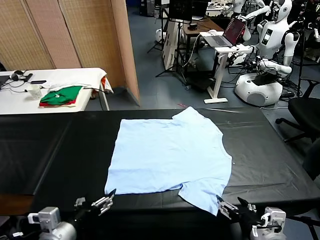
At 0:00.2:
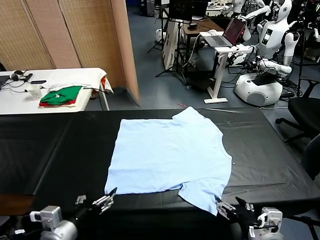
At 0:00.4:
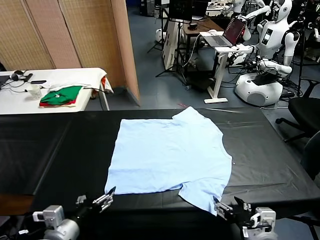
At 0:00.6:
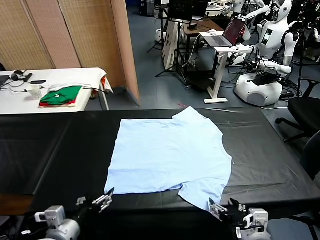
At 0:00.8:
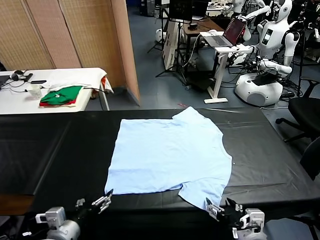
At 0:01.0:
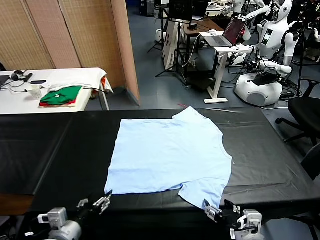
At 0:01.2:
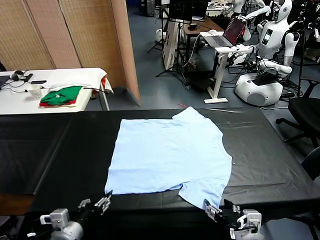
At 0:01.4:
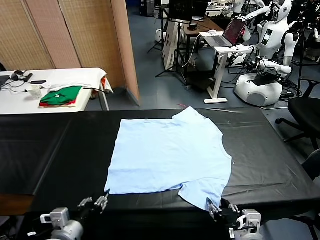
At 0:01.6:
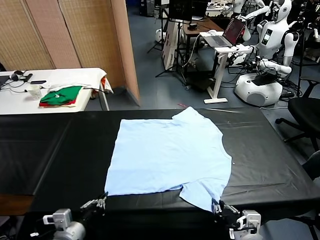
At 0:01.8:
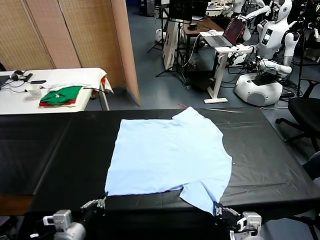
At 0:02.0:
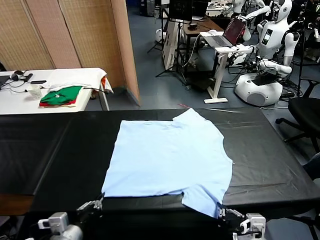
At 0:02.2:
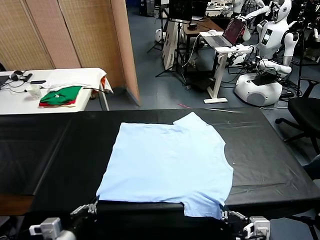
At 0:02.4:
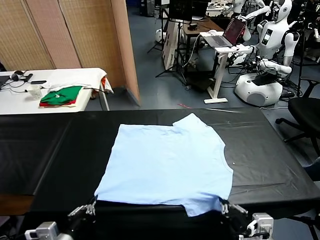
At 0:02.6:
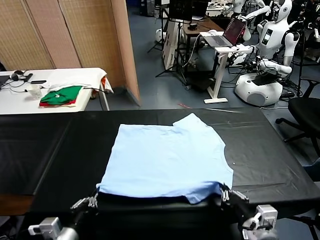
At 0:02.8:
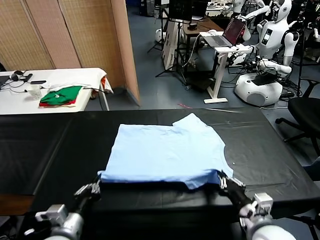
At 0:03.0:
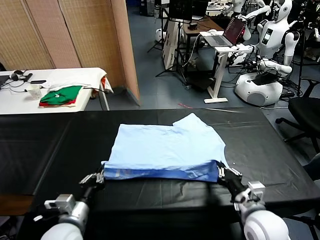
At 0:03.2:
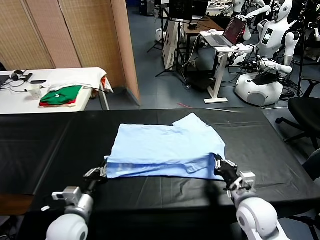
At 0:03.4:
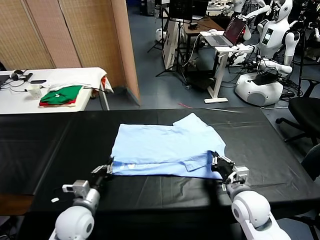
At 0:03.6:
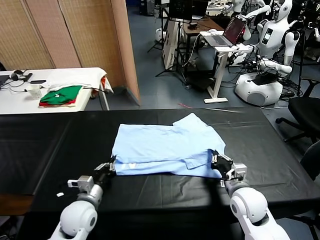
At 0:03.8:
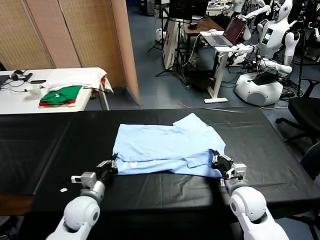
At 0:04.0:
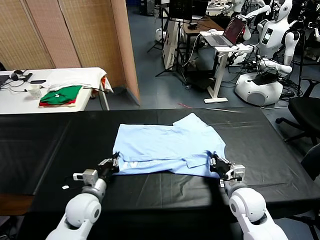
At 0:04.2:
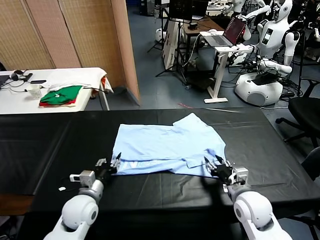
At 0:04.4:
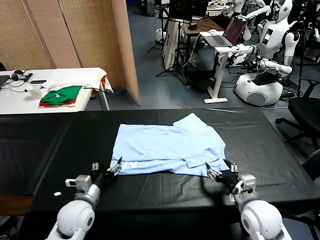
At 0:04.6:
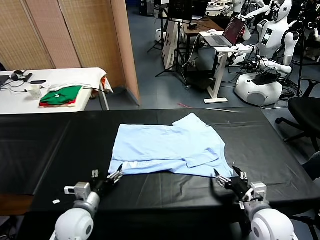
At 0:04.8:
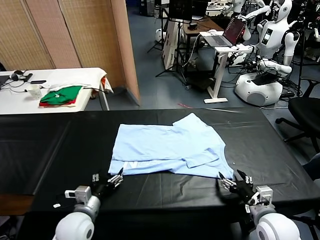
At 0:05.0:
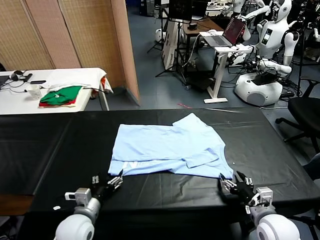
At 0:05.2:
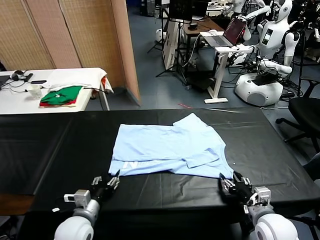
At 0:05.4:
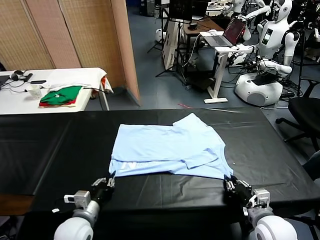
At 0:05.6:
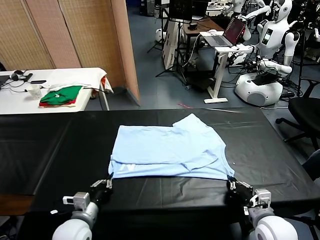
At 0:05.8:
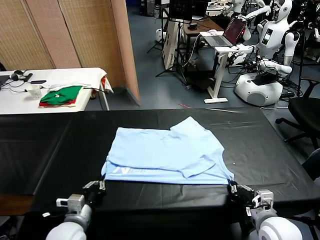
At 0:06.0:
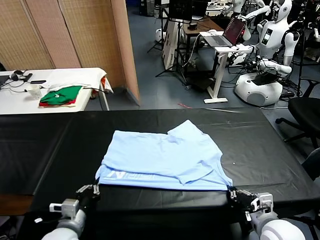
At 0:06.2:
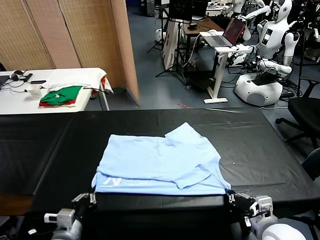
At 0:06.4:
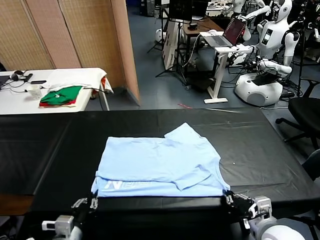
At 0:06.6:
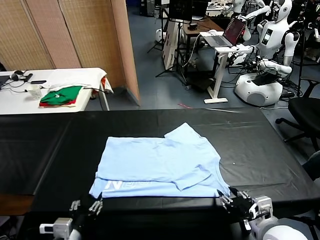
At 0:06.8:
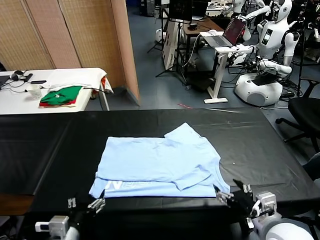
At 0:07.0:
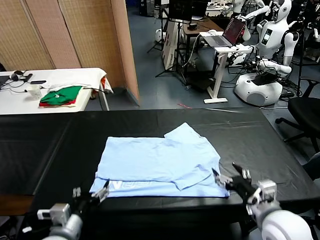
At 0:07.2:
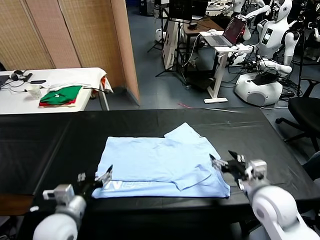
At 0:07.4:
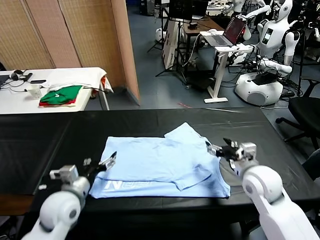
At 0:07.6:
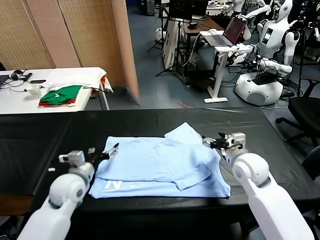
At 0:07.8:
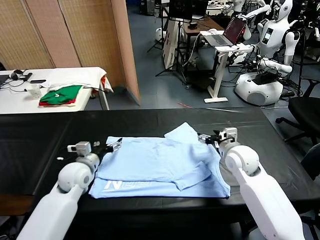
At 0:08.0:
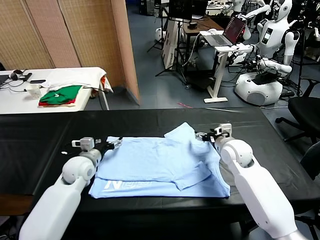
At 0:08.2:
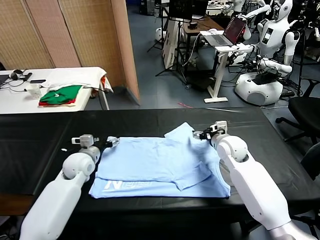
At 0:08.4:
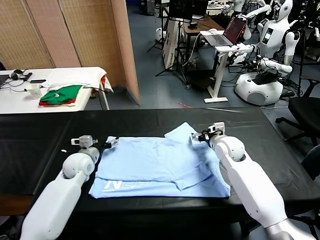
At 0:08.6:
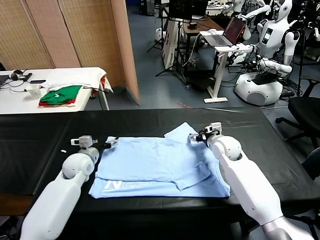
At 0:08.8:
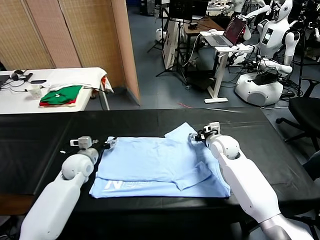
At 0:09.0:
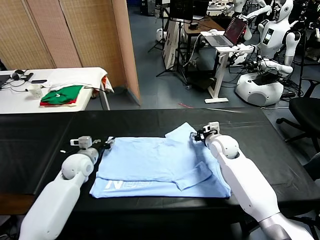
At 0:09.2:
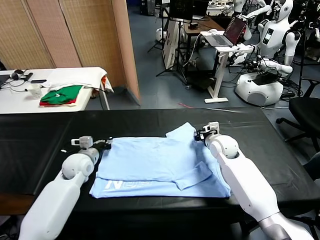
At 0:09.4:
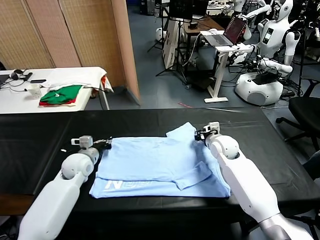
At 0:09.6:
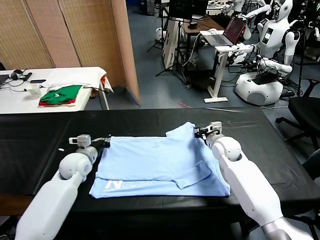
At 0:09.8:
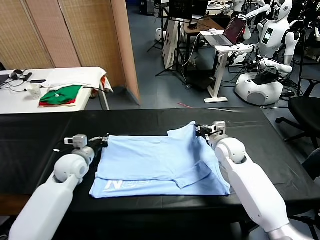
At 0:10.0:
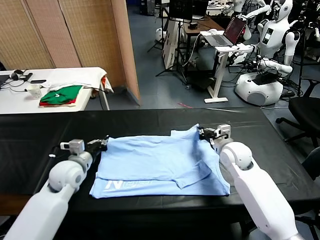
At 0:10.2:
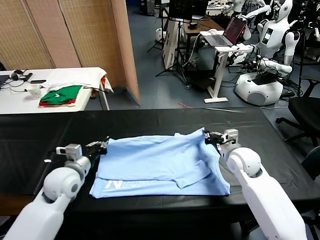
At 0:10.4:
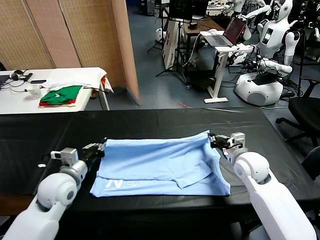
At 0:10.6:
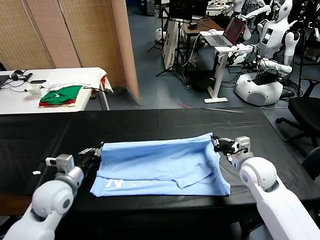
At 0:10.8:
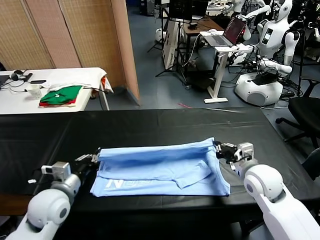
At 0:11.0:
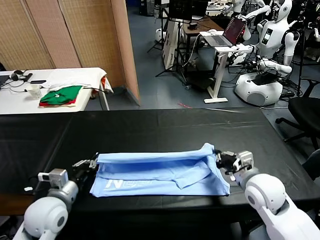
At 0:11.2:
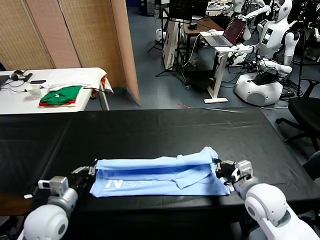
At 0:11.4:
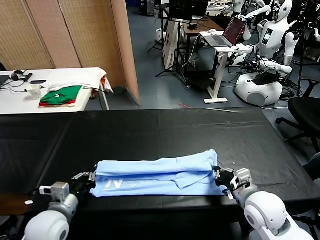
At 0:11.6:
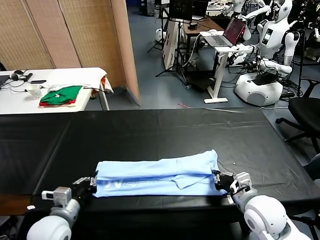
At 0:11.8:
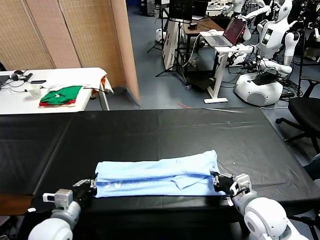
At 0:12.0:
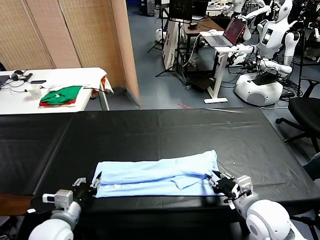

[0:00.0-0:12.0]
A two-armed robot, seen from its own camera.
Task of the whole recording: fold and organize the clothes.
Step, 0:00.0 to 0:01.8: use both grippers simultaneously to clamp the lower edge of the clothing fabric.
Step, 0:02.0 to 0:04.0: use both grippers to drag the lower edge of the fabric forward and fold it over the upper edge.
Step, 0:04.4 to 0:06.6: Drag the clothes downward with both gripper.
Step, 0:06.8 to 0:09.2: use both grippers simultaneously to clamp the upper edge of the clothing fabric.
0:01.6 to 0:03.0: The right gripper shifts approximately 15 cm forward. Meanwhile the left gripper travels forward by about 5 cm.
0:03.0 to 0:04.4: The left gripper opens up, while the right gripper goes roughly 10 cm to the right and backward, and opens.
0:04.4 to 0:06.0: The left gripper heads backward, covering some 10 cm, and closes its fingers. Meanwhile the right gripper ends up some 5 cm from where it was, and closes.
0:06.0 to 0:07.6: The grippers both shift forward by roughly 20 cm. The right gripper opens, while the left gripper opens up.
0:07.6 to 0:09.0: The grippers both shift forward by approximately 5 cm. The right gripper closes. Meanwhile the left gripper closes.
0:09.0 to 0:10.4: The right gripper travels backward and to the right by about 15 cm. Meanwhile the left gripper travels backward and upward by about 15 cm, and closes.
0:10.4 to 0:12.0: Both grippers move backward, approximately 10 cm. The left gripper opens up. The right gripper opens its fingers.

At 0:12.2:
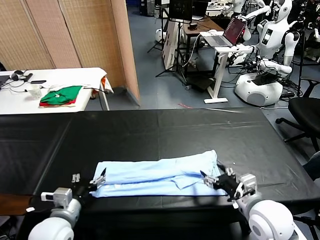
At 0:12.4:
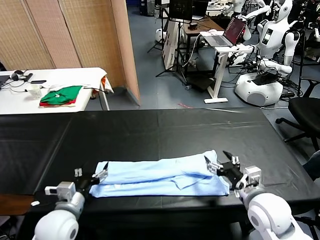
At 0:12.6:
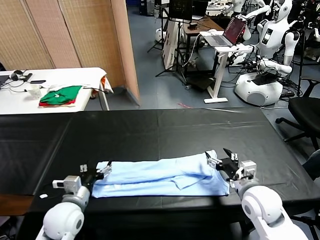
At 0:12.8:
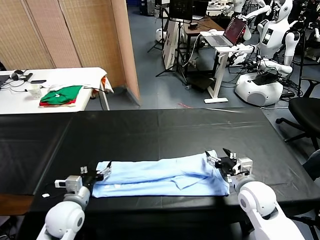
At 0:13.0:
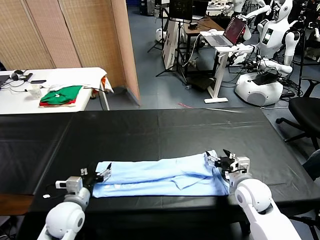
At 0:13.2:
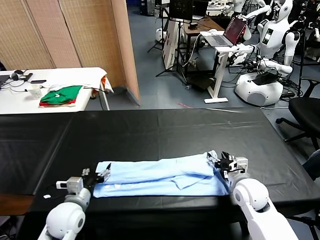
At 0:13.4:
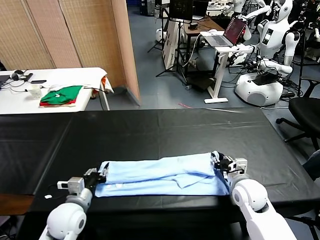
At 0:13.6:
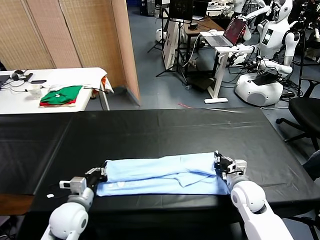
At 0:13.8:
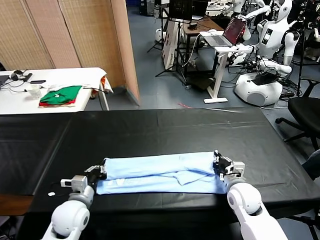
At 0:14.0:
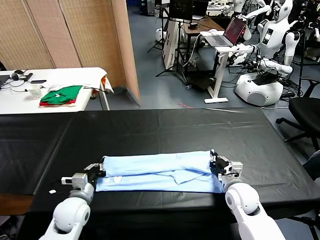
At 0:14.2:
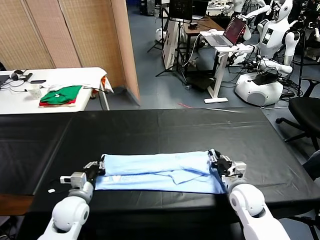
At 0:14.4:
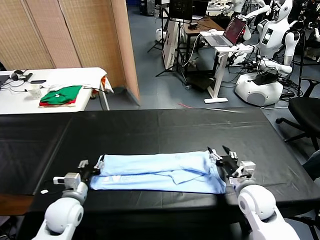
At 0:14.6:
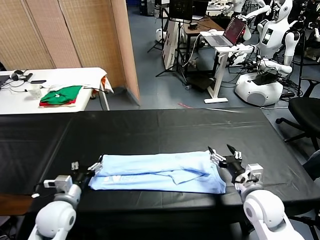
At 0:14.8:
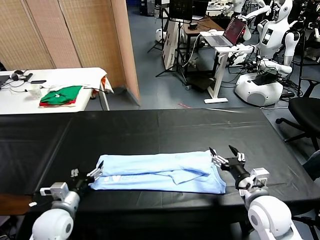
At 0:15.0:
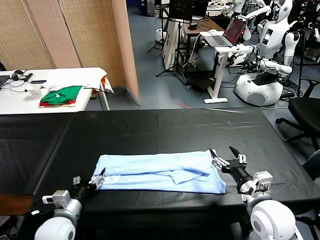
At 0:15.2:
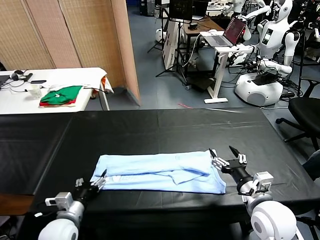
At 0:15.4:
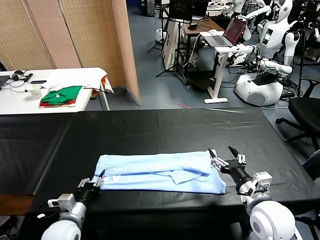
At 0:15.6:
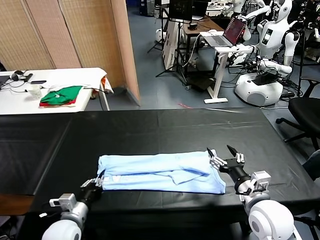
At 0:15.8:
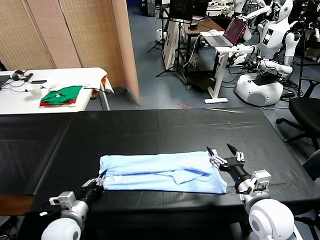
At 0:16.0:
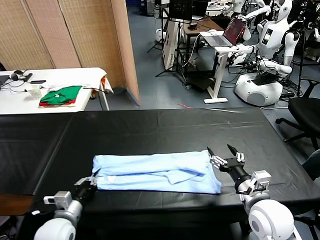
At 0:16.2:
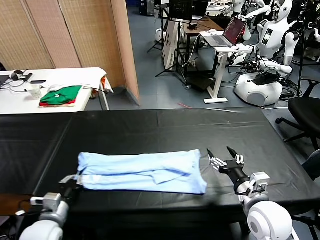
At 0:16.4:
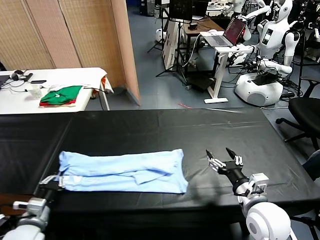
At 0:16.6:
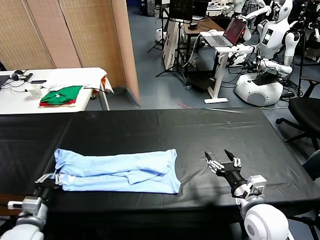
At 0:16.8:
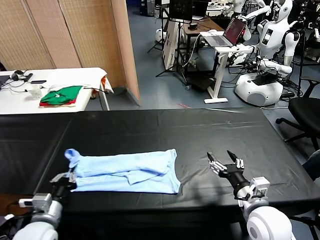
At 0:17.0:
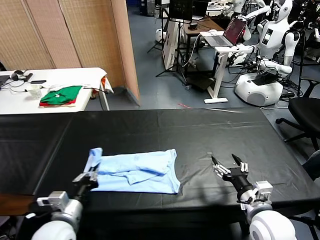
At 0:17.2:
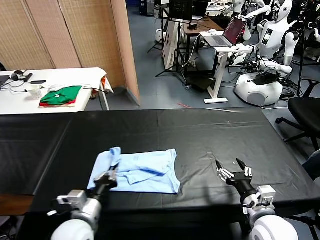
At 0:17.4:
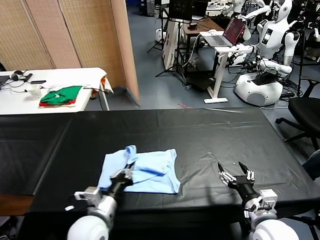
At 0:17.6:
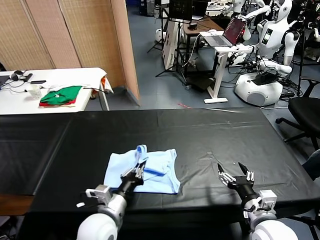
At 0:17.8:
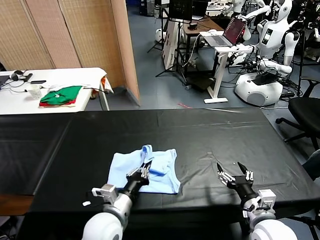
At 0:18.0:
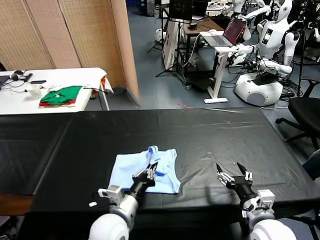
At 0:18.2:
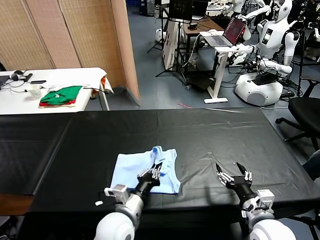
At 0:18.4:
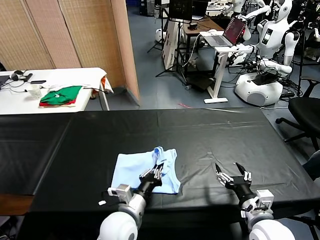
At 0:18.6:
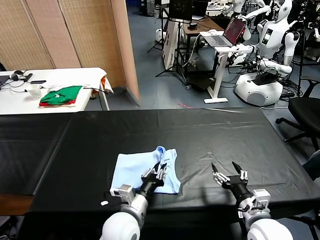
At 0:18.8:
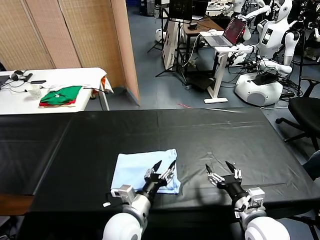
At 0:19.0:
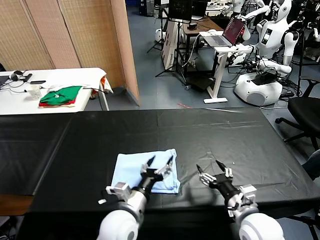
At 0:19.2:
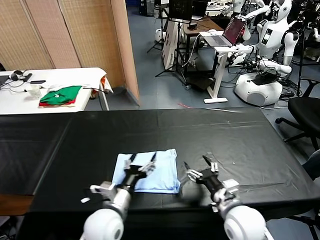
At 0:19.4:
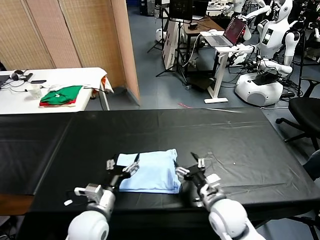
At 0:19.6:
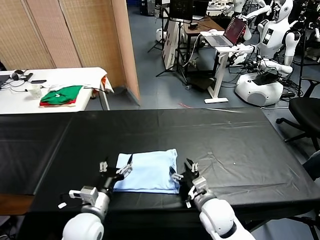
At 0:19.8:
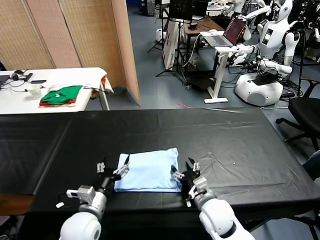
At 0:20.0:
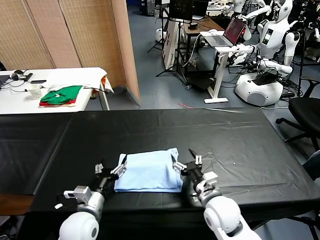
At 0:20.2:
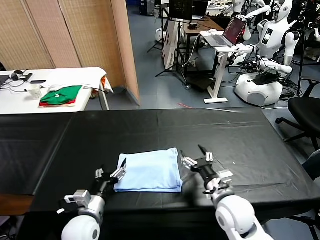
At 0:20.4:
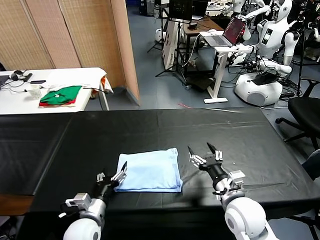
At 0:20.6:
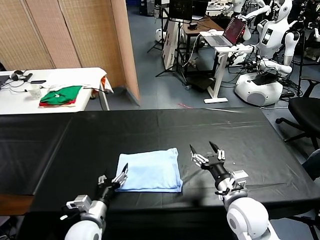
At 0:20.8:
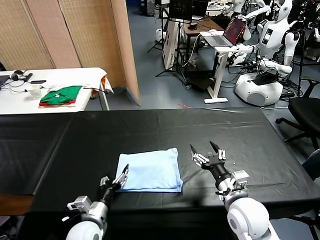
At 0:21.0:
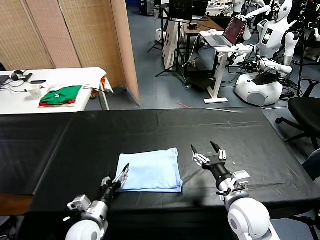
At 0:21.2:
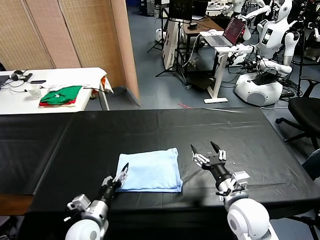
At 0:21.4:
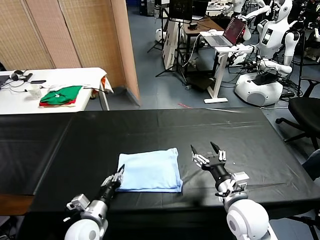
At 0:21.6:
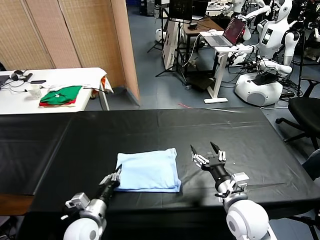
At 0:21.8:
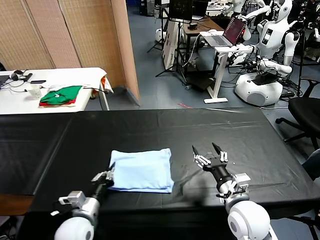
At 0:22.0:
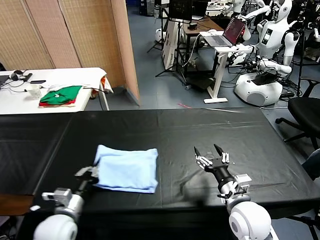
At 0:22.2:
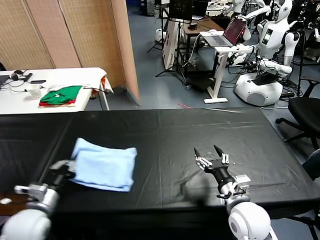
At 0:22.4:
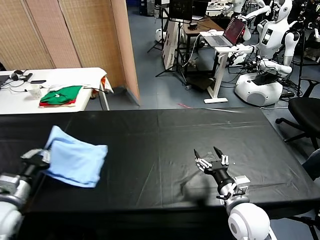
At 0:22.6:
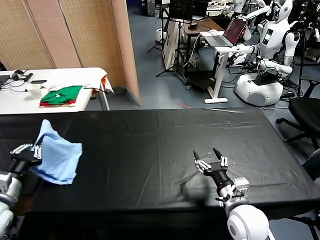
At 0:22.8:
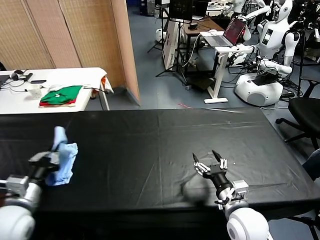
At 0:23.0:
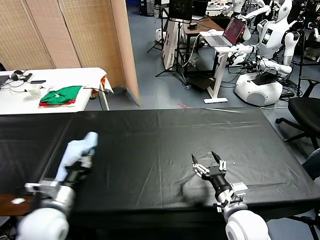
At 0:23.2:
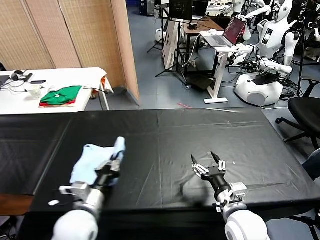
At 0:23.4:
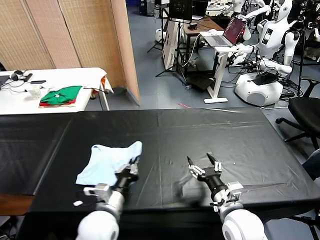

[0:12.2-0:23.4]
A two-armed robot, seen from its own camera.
Task of the whole recording: fold and organize the clothes.
Step, 0:12.2 to 0:15.6: use the left gripper to clamp the left edge of the fabric.
Step, 0:15.8 to 0:18.6: use the left gripper to drag the left edge of the fabric to the left and folds it over the right edge.
0:12.2 to 0:13.8: The right gripper heads downward and forward, covering about 10 cm, and closes up. Meanwhile the left gripper heads forward and downward, covering roughly 10 cm, and closes up.
0:13.8 to 0:15.4: The right gripper shifts roughly 15 cm upward and backward, and opens its fingers, while the left gripper goes roughly 5 cm backward, and opens up.
0:15.4 to 0:17.0: The left gripper is displaced upward by about 5 cm, moves roughly 10 cm to the left and comes back, and closes up.
0:17.0 to 0:18.6: The left gripper heads to the right, covering some 15 cm.
0:18.6 to 0:20.2: The left gripper is displaced to the left by some 15 cm, and opens up; the right gripper moves to the left and forward, roughly 10 cm.
0:20.2 to 0:21.8: The left gripper closes up.
0:21.8 to 0:23.4: The left gripper travels upward by some 5 cm, and travels to the left and back again, approximately 15 cm each way.
